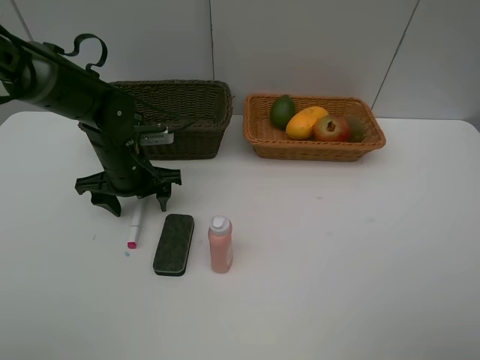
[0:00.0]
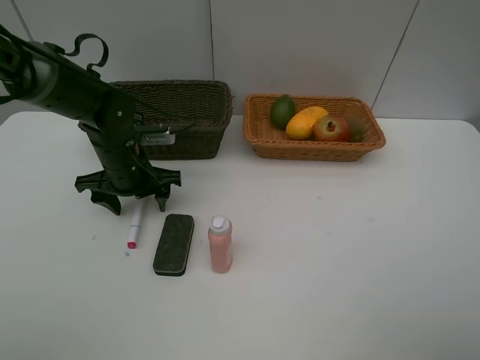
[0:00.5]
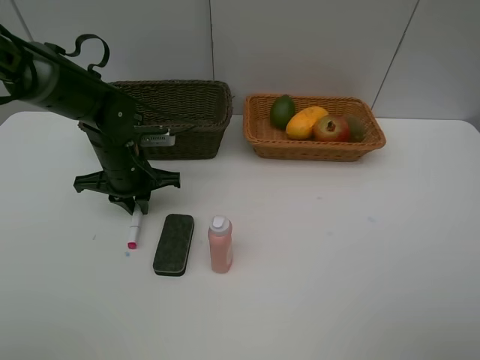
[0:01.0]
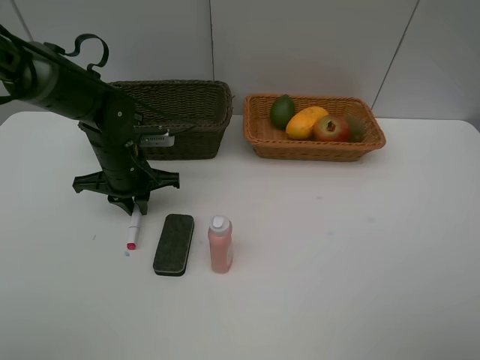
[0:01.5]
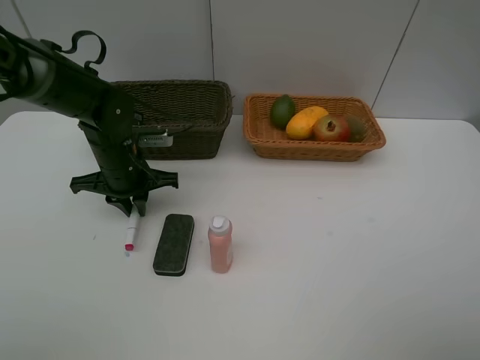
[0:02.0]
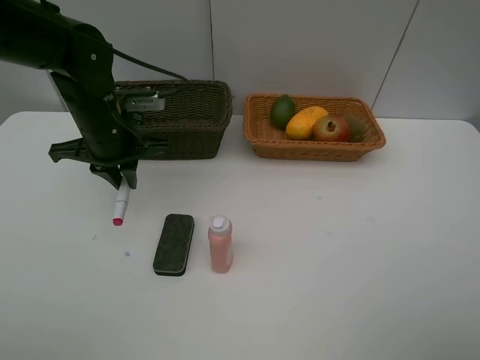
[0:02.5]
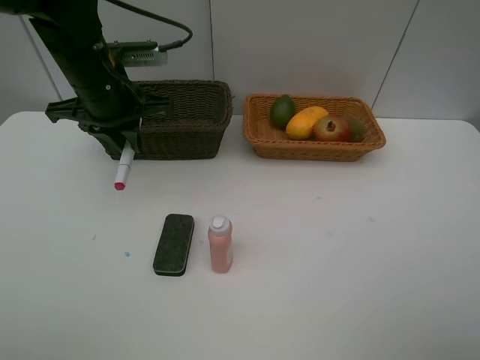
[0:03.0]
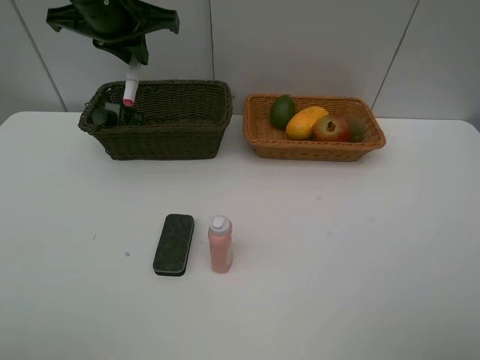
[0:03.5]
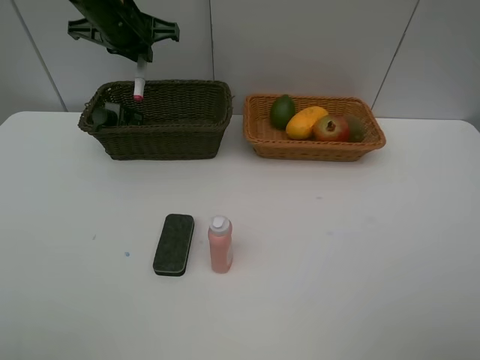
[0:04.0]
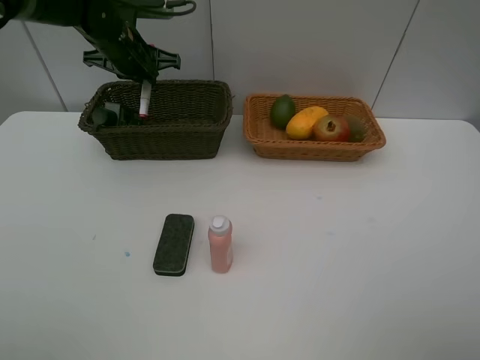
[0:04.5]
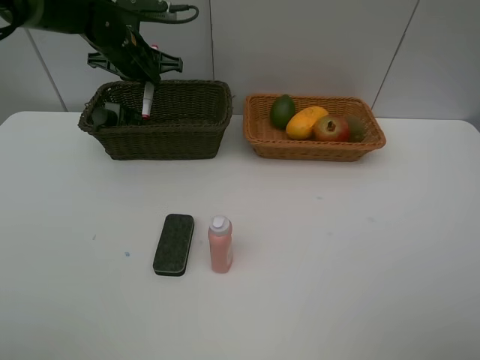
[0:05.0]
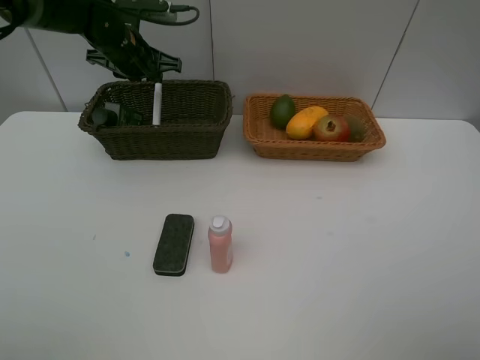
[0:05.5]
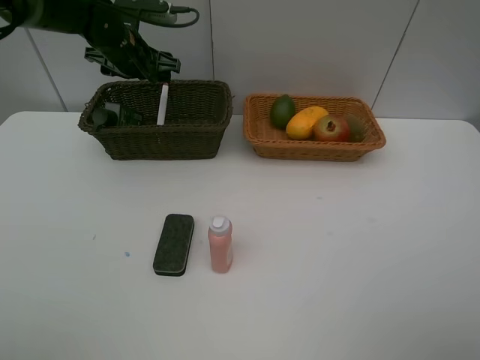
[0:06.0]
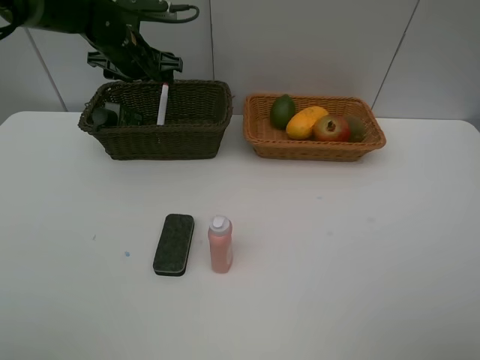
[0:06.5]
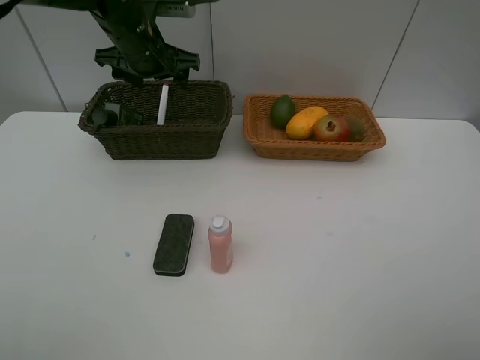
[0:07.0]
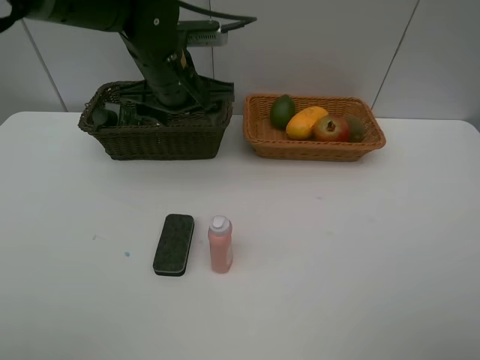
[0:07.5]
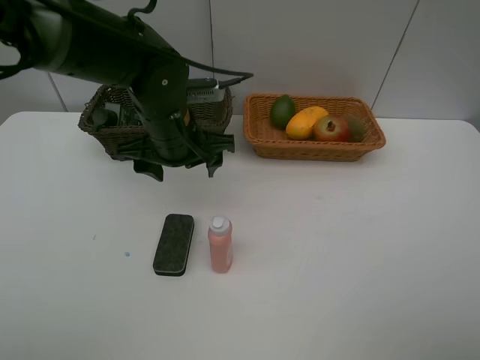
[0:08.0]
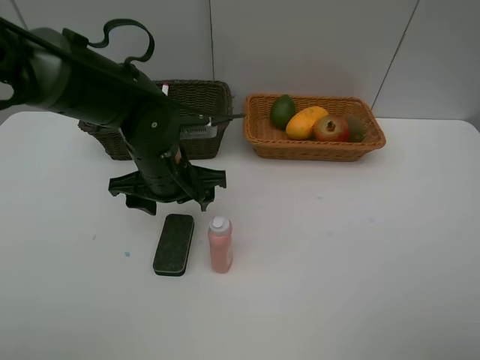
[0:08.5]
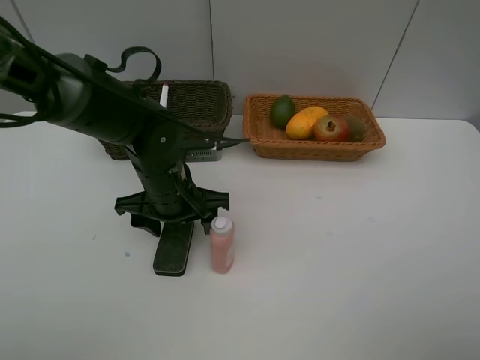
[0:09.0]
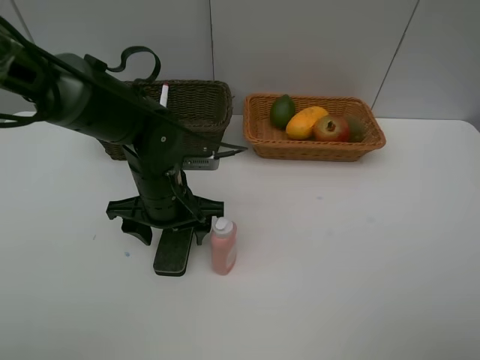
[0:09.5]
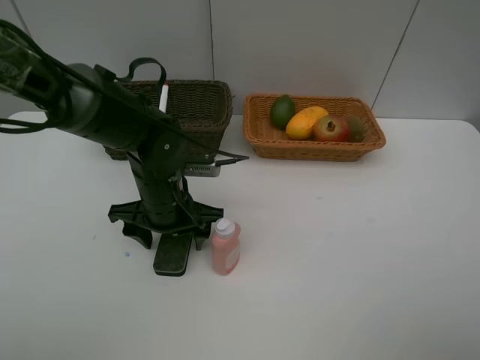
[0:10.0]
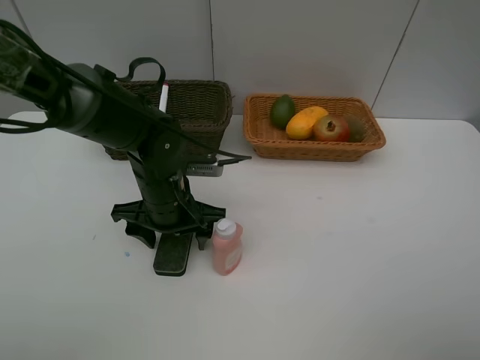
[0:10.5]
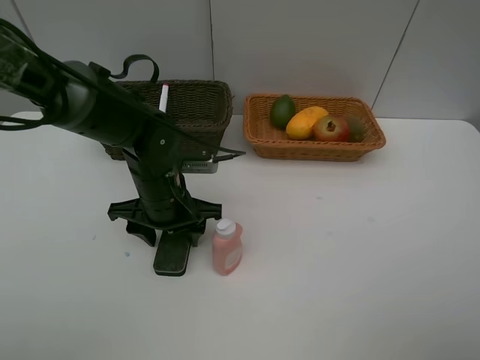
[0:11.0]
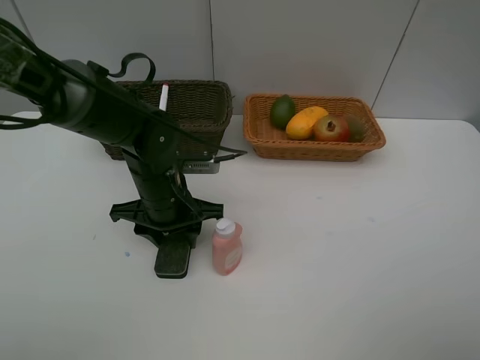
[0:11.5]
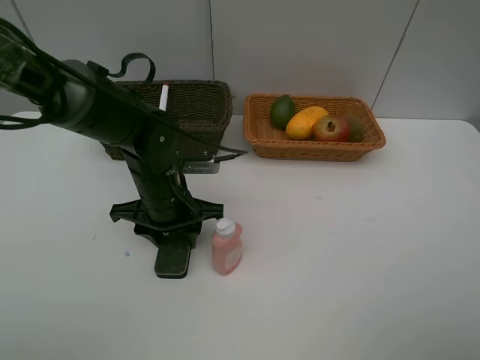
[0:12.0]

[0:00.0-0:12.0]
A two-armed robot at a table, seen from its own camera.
Task of the whole recording: Place multiple objects separately in different baskets.
Step, 0:00.0 to 0:02.0: Pick up the red marker with left gripper.
Step, 0:02.5 to 0:06.0: Place the red marker in the dark basket with left gripper.
0:00.0 to 0:02.0: The left gripper closes up.
0:02.0 to 0:04.0: The left gripper is displaced upward and forward by some 20 cm.
0:04.0 to 0:06.0: The left gripper goes some 5 cm downward, and opens its fingers.
0:06.0 to 0:08.0: The left gripper goes some 20 cm backward and to the right.
0:08.0 to 0:10.0: The left gripper heads downward, covering some 5 cm.
0:10.0 to 0:12.0: The left gripper closes its fingers.

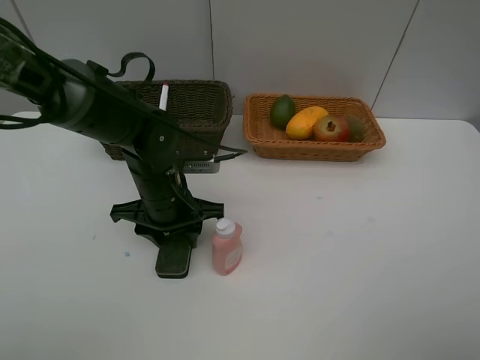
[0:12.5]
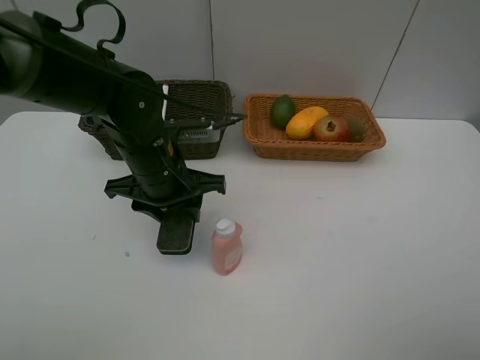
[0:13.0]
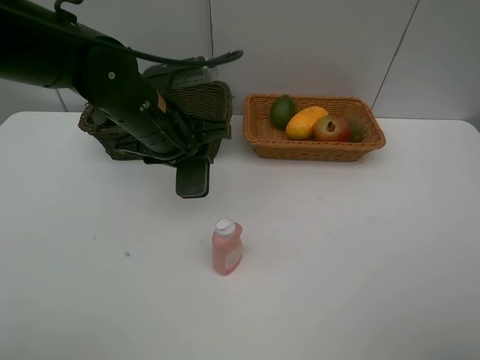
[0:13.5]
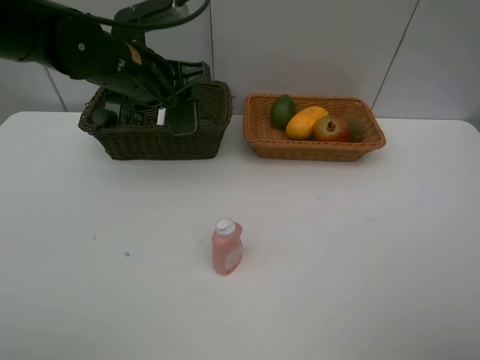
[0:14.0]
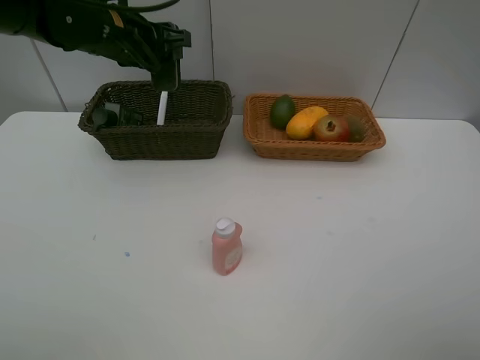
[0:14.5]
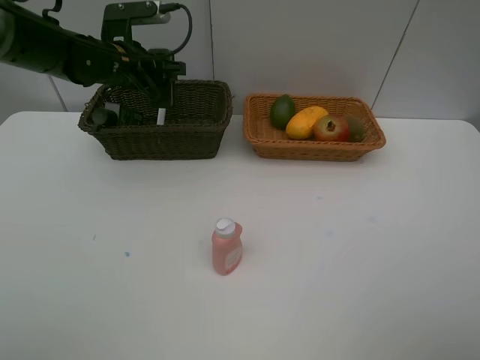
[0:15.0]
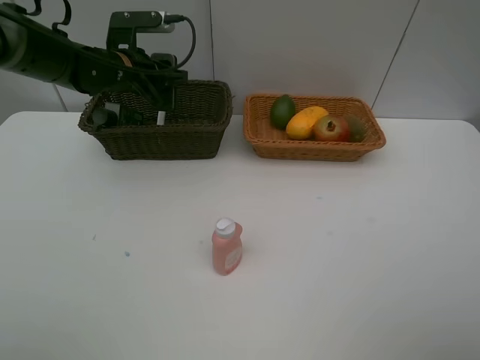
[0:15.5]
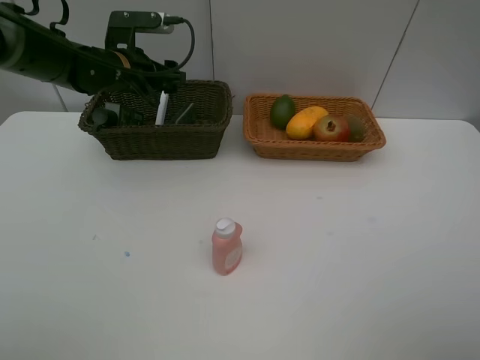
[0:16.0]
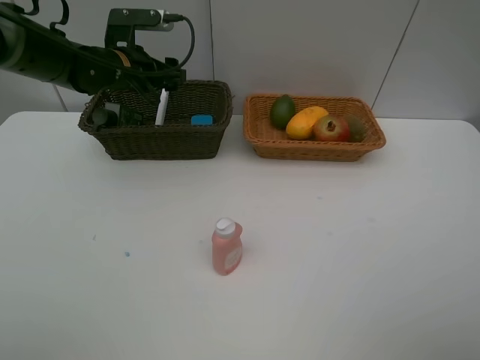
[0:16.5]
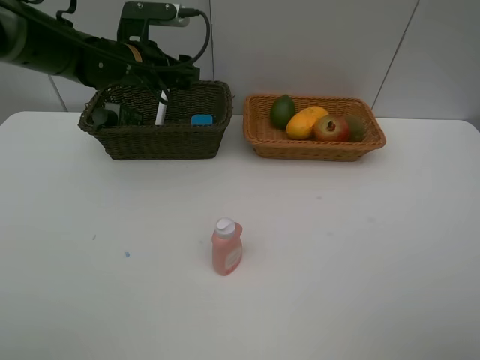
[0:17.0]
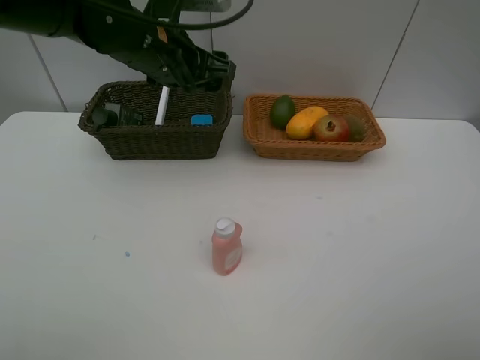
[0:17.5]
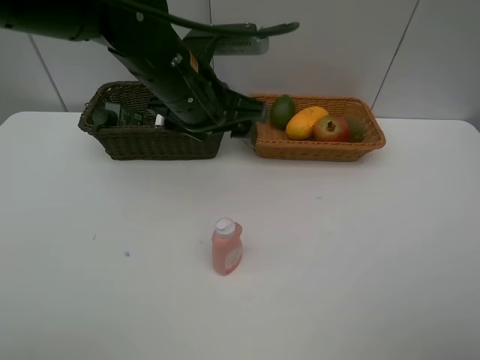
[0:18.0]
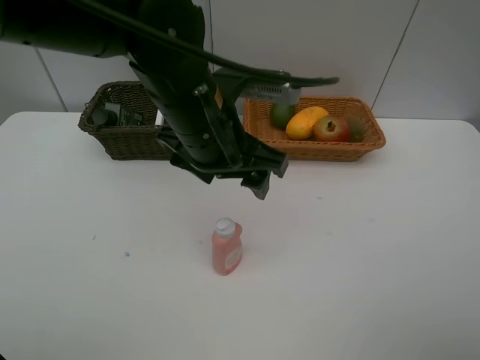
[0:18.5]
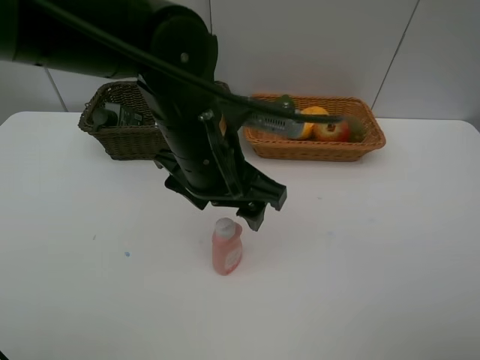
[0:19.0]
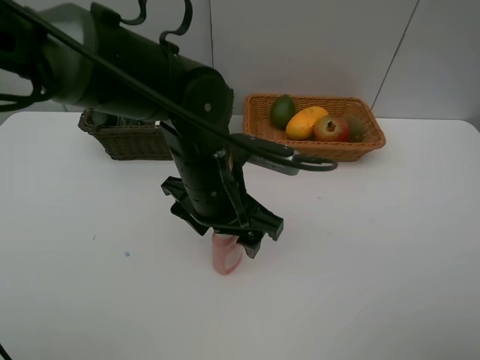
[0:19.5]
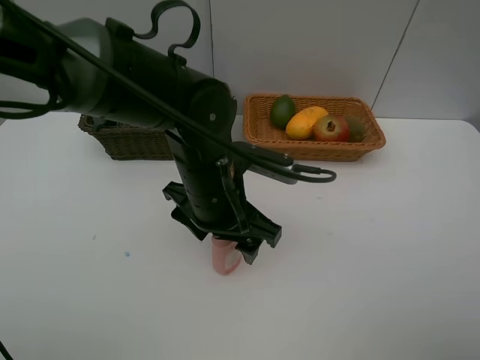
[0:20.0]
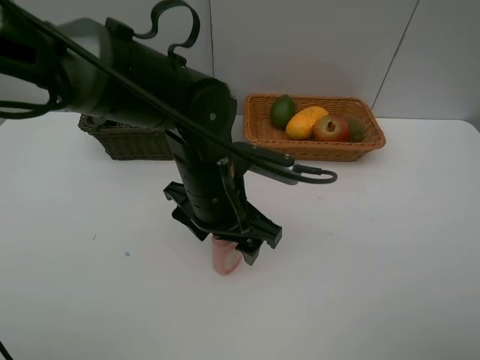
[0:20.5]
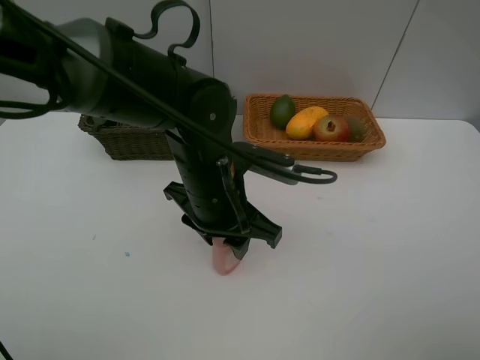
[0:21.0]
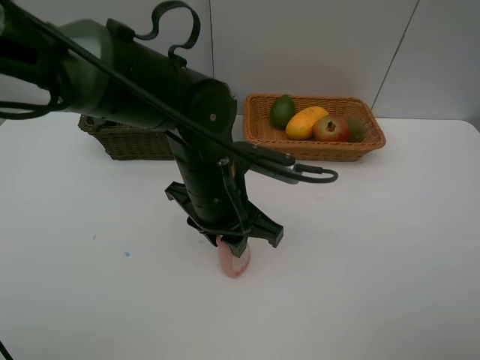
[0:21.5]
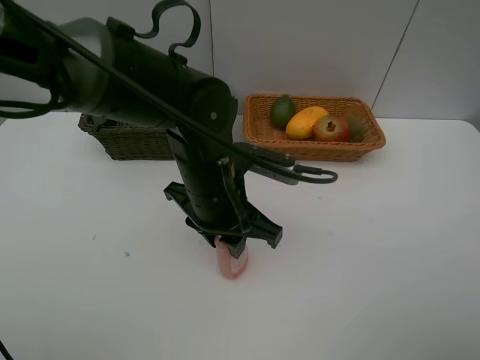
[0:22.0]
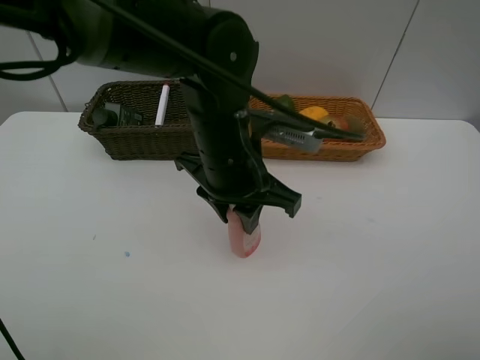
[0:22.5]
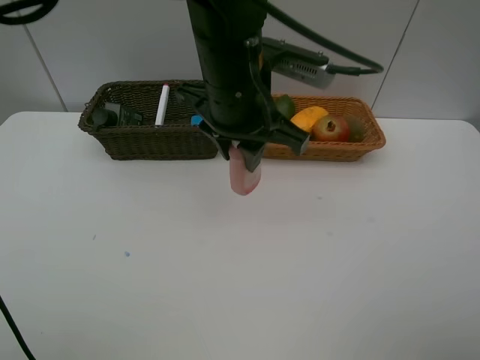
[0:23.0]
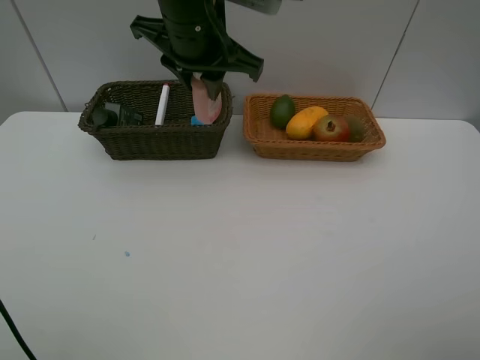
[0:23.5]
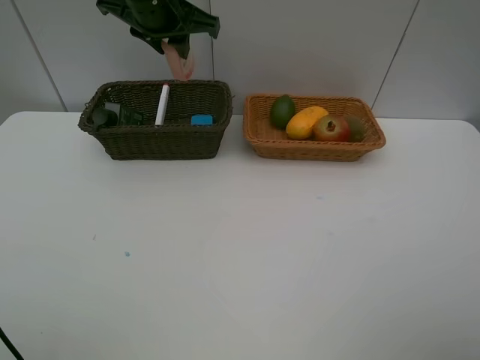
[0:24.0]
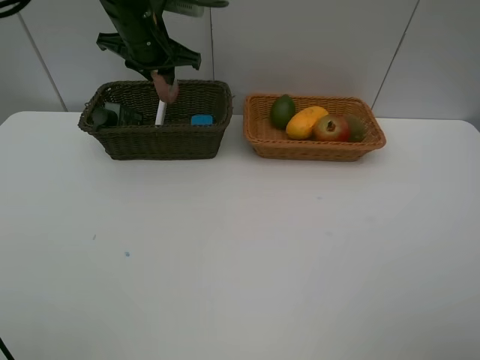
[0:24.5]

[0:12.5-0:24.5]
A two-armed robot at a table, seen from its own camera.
Task of the whole recording: Place multiple objects separately in different baskets.
Step, 0:13.0 to 0:16.5: Place the blackboard eraser in the dark basket with left gripper.
Step, 0:17.0 to 0:22.5: Pick up the laundry detergent with left gripper.
0:12.5 to 0:14.5: The left gripper heads upward, forward and to the left, covering approximately 20 cm.
0:14.5 to 0:16.5: The left gripper is displaced downward by approximately 5 cm, and opens up.
0:16.5 to 0:18.5: The left gripper shifts about 25 cm backward and to the right.
0:18.5 to 0:20.5: The left gripper is displaced downward by approximately 5 cm.
0:20.5 to 0:22.5: The left gripper changes place by about 5 cm, and closes its fingers.
0:22.5 to 0:24.5: The left gripper is displaced forward and to the left by about 25 cm.

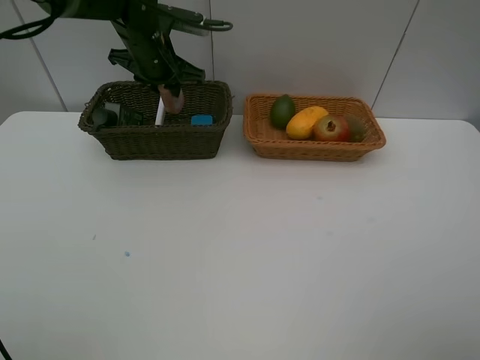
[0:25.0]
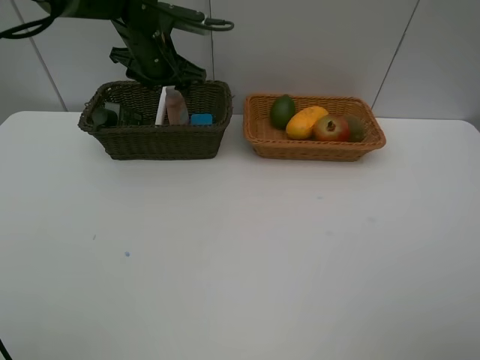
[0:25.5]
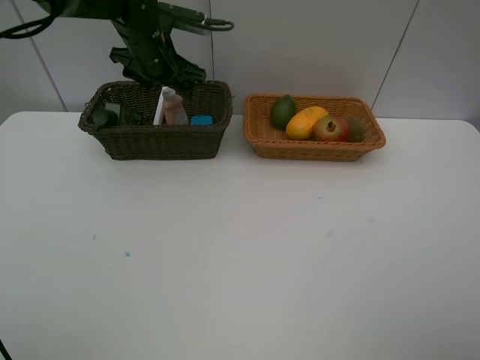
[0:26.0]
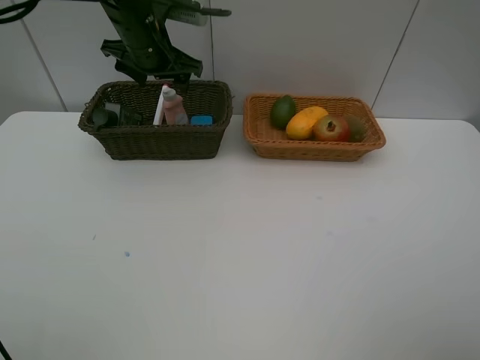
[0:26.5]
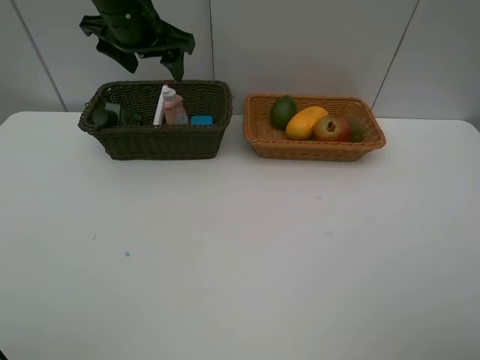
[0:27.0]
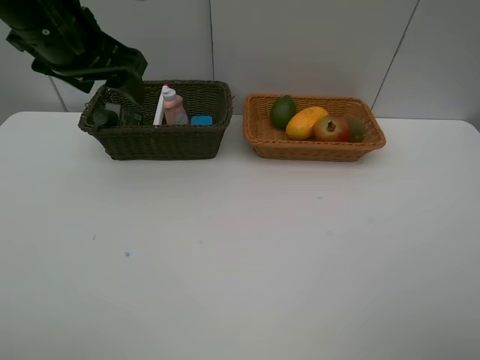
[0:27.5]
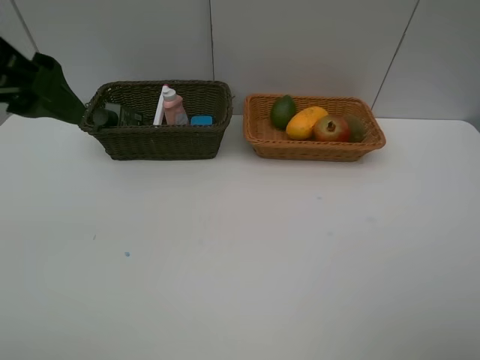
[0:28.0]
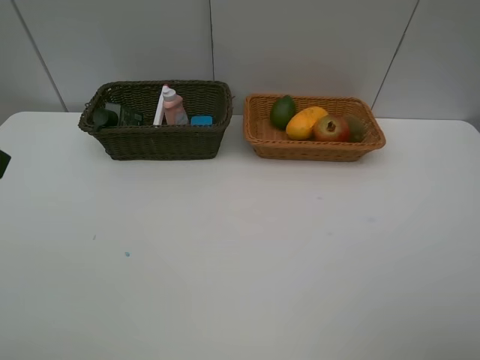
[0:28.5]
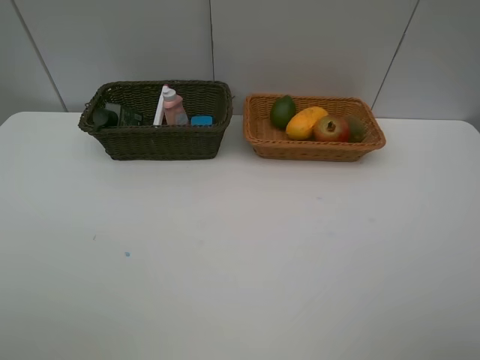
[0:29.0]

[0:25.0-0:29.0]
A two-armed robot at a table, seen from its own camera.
Task of the whole recording: Place multiple objects separately in different baskets.
0:25.0 to 0:27.0: The left gripper moves upward and backward, some 10 cm, and opens its fingers.
0:27.0 to 0:29.0: The left gripper shifts roughly 40 cm backward and to the left.
